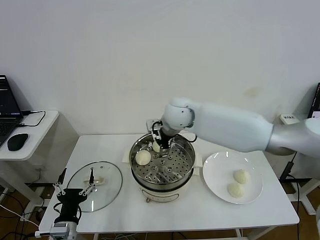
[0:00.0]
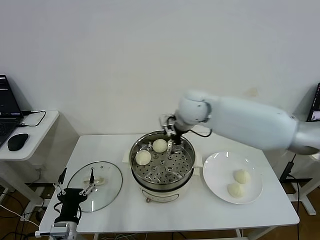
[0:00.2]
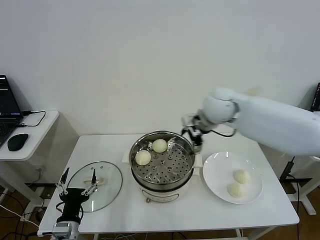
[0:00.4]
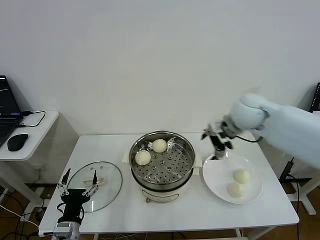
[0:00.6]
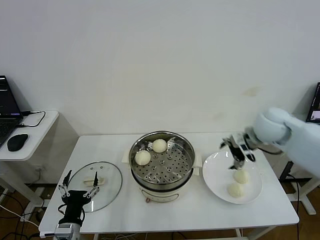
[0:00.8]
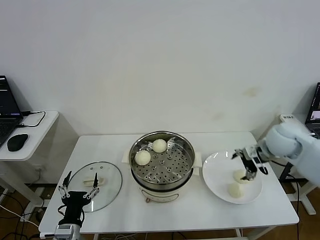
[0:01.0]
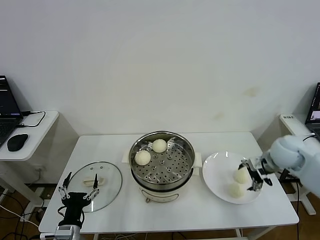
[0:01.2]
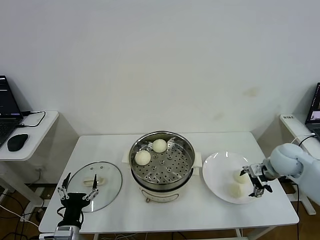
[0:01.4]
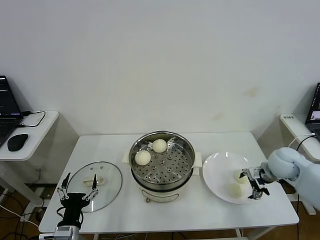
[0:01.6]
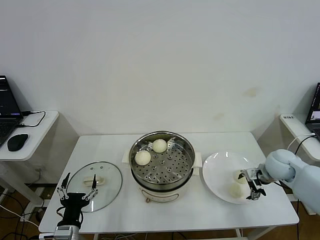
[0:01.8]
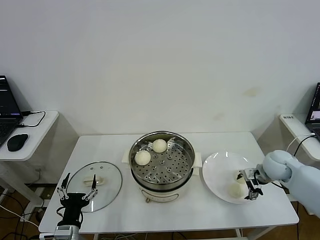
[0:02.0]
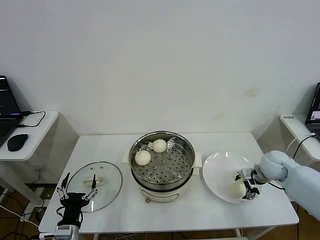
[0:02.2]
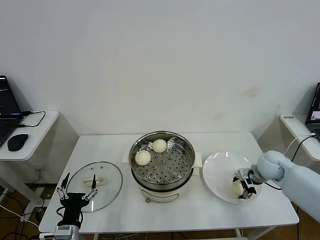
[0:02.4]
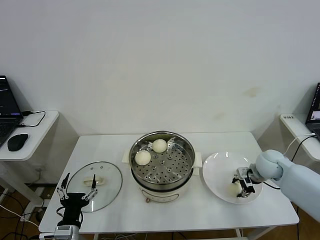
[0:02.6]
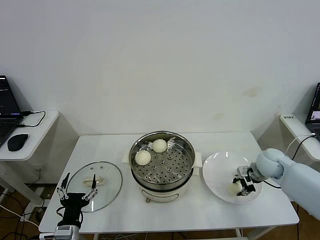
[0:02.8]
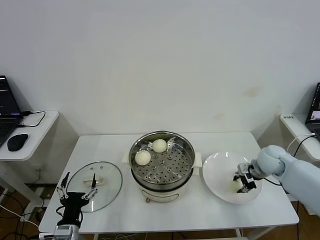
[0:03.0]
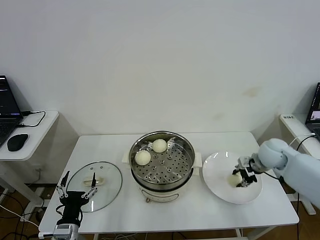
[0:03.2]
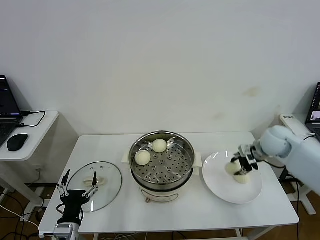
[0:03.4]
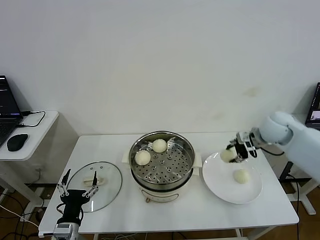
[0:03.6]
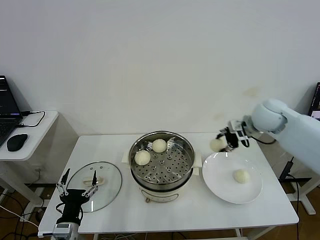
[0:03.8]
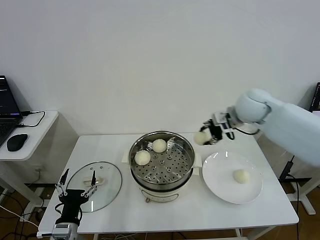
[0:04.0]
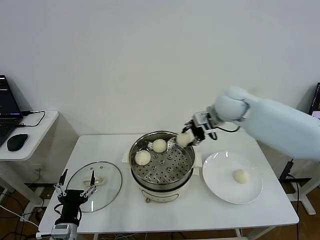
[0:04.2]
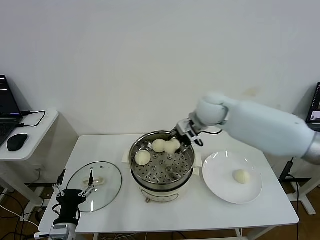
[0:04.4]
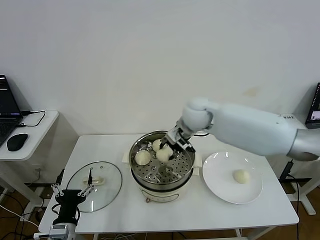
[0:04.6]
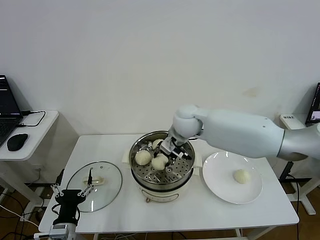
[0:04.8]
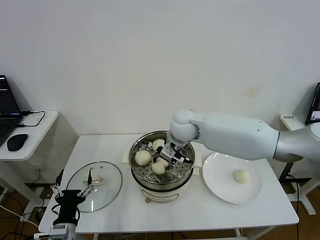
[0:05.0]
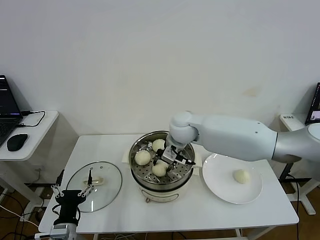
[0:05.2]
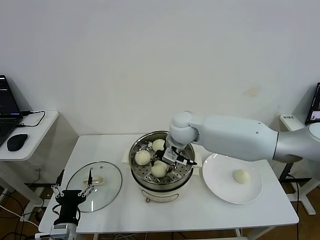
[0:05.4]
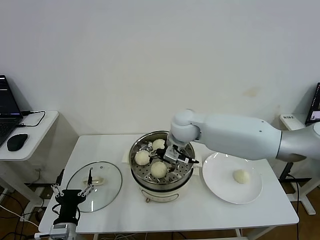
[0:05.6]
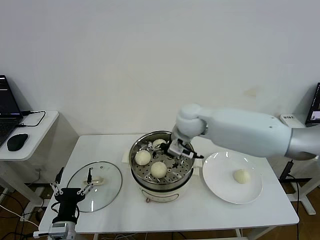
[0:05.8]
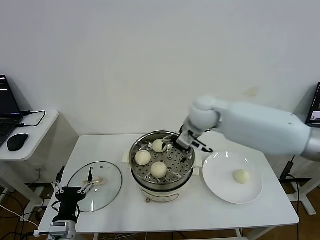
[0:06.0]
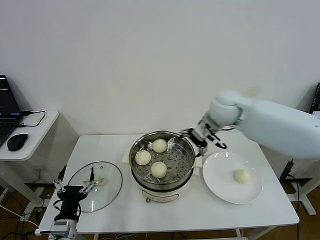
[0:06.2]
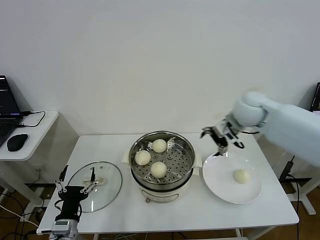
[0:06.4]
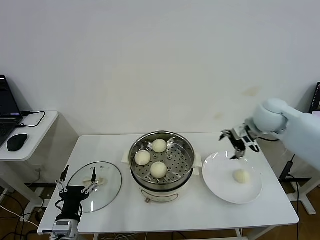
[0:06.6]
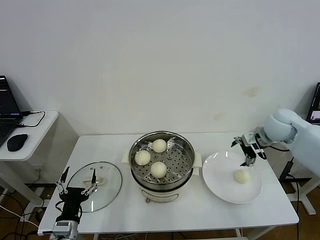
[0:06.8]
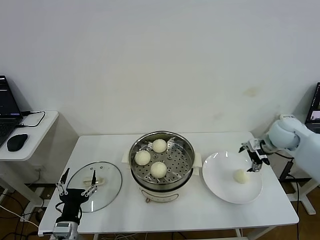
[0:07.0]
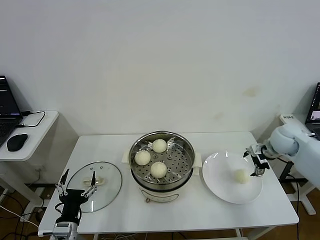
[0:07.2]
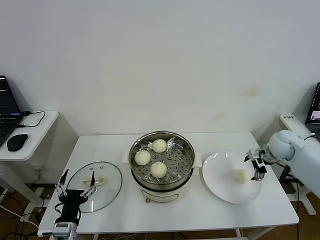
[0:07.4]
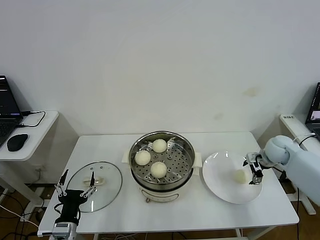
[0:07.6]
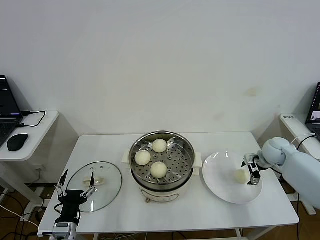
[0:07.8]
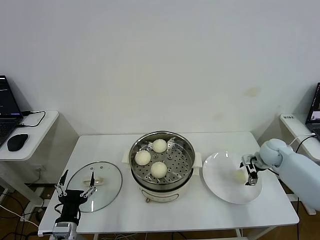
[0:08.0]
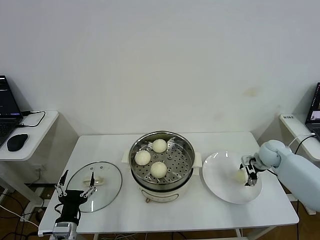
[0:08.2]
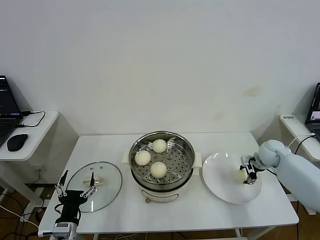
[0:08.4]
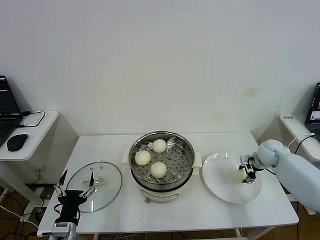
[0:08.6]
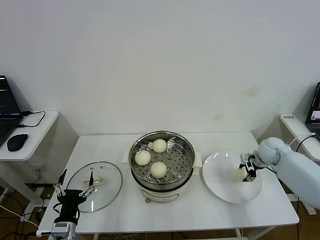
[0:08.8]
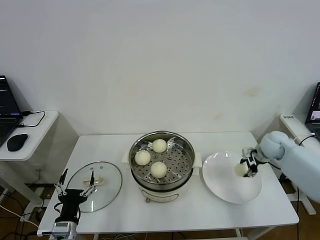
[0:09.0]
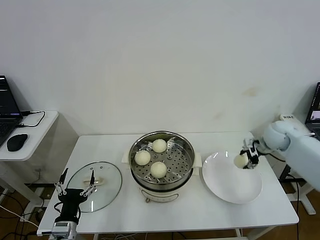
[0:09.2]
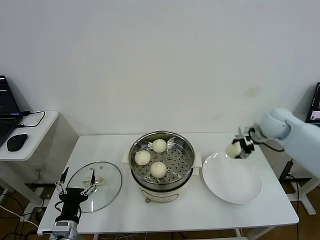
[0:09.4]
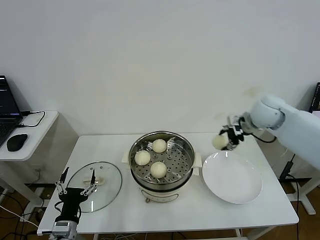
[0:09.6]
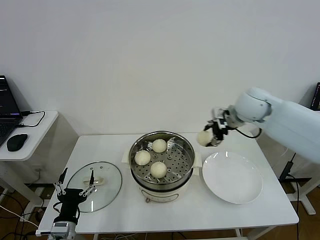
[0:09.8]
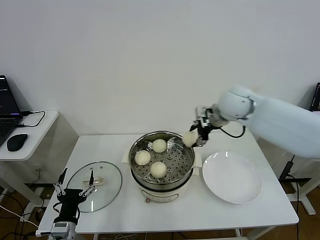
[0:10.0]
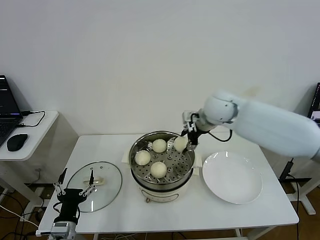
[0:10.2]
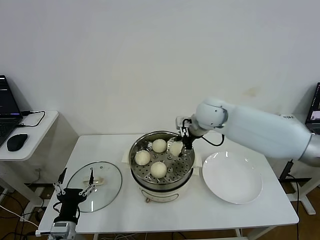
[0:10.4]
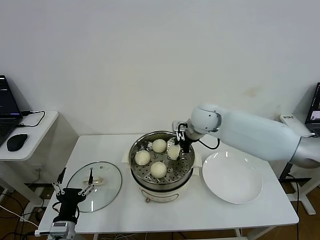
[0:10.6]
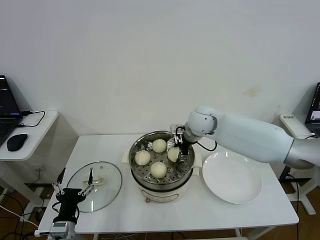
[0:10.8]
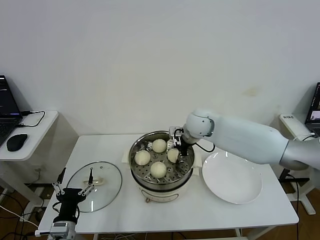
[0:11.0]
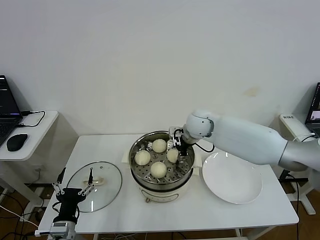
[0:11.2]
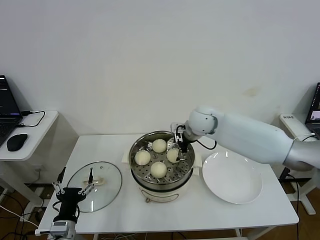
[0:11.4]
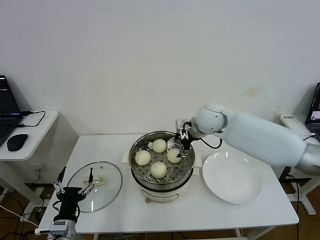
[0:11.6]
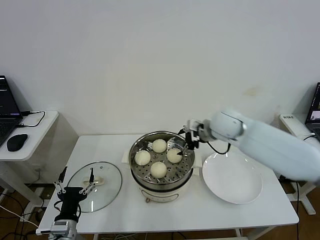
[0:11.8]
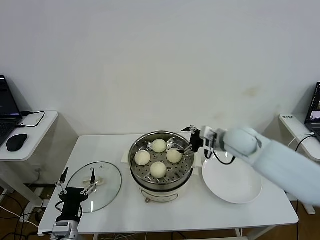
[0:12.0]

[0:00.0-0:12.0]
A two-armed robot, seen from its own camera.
Step, 0:00.0 to 0:02.8: Grasp the baozi in the plate with right gripper.
Step, 0:03.0 to 0:05.4: Place the baozi on the steamer with right gripper.
Step, 0:05.8 to 0:08.6: Grasp the baozi in the plate with right gripper.
Step, 0:08.8 to 0:11.2: Place the baozi on the steamer with right gripper.
0:00.0 to 0:01.6: The right gripper goes some 35 cm to the right and downward.
0:01.6 to 0:03.0: The right gripper closes its fingers.
0:03.0 to 0:04.4: The right gripper goes some 30 cm to the left and upward.
0:04.4 to 0:06.0: The right gripper reaches approximately 10 cm to the left, then returns, and opens its fingers.
0:06.0 to 0:07.6: The right gripper shifts approximately 35 cm to the right and downward.
0:07.6 to 0:09.0: The right gripper closes its fingers.
0:09.0 to 0:10.4: The right gripper shifts approximately 30 cm to the left and upward.
0:10.4 to 0:12.0: The right gripper goes about 10 cm to the right and backward, and opens.

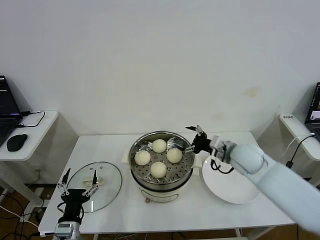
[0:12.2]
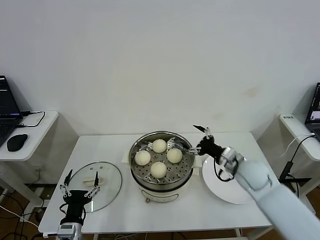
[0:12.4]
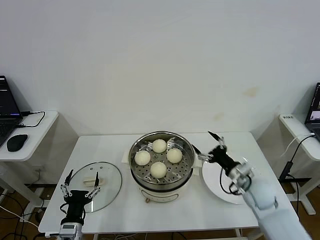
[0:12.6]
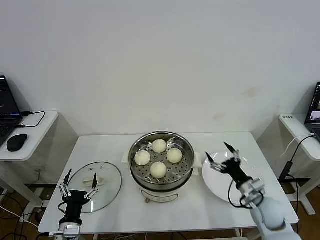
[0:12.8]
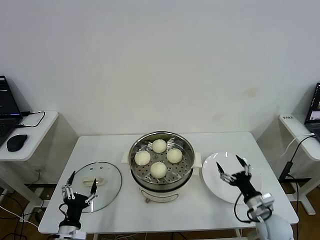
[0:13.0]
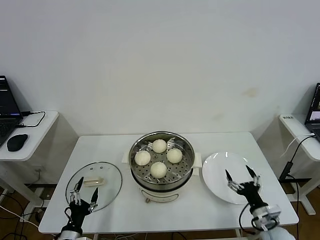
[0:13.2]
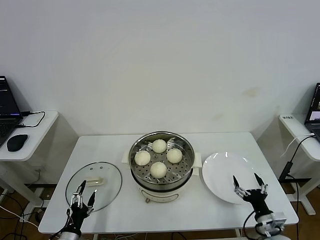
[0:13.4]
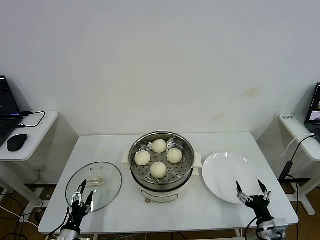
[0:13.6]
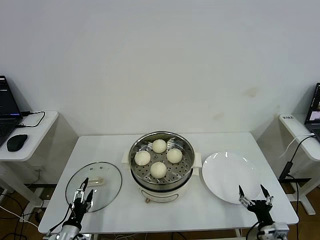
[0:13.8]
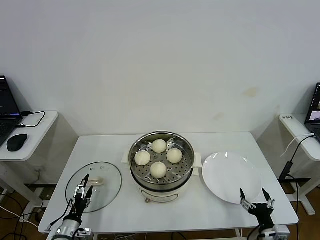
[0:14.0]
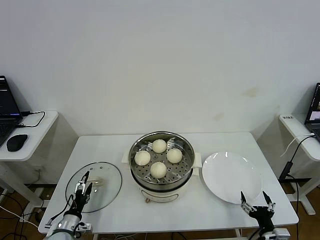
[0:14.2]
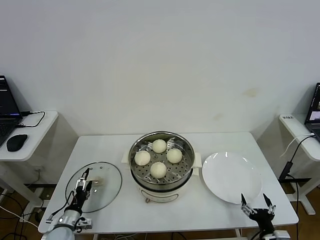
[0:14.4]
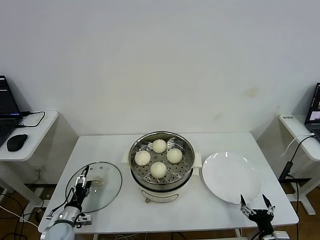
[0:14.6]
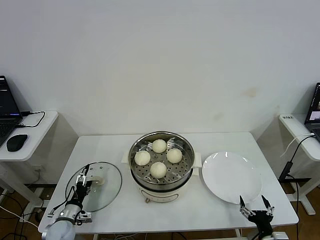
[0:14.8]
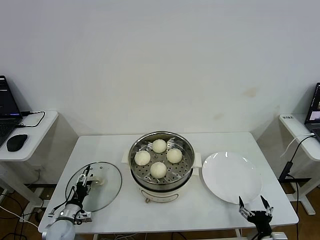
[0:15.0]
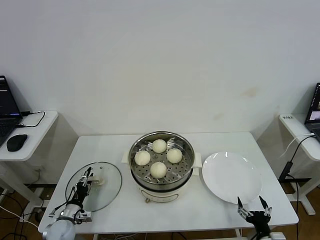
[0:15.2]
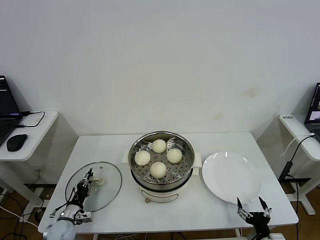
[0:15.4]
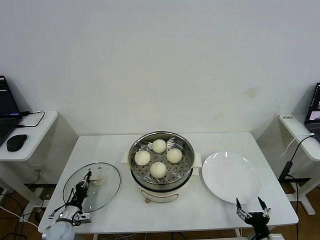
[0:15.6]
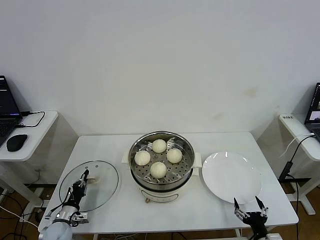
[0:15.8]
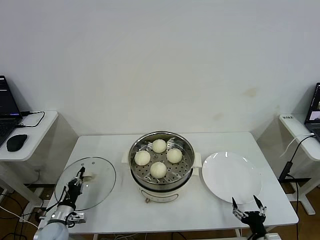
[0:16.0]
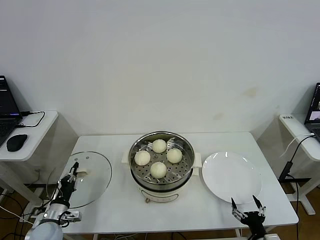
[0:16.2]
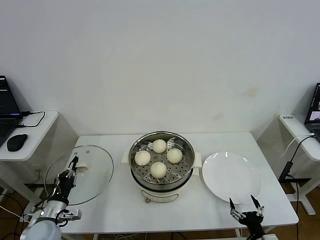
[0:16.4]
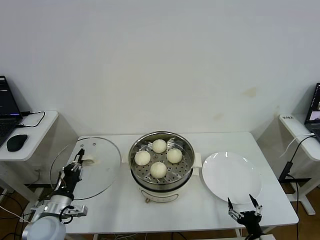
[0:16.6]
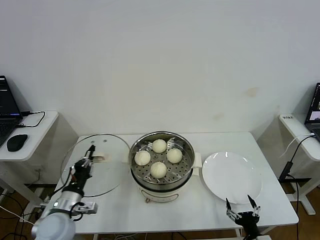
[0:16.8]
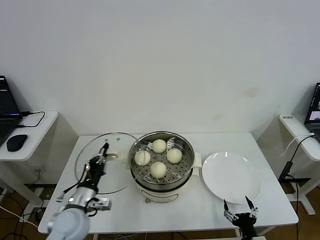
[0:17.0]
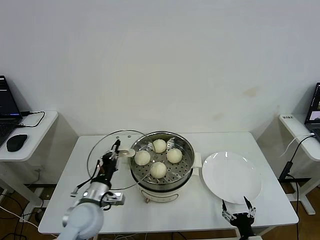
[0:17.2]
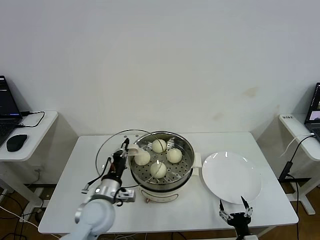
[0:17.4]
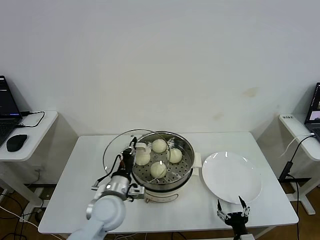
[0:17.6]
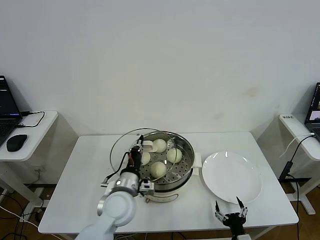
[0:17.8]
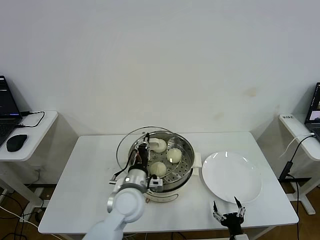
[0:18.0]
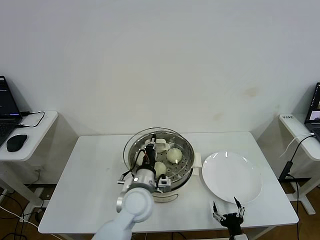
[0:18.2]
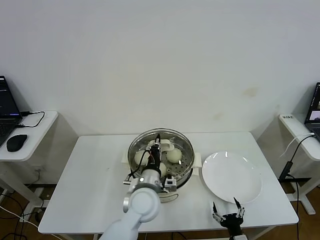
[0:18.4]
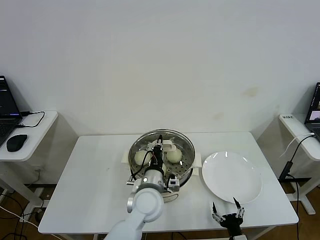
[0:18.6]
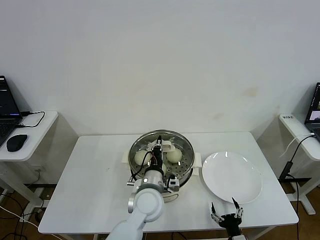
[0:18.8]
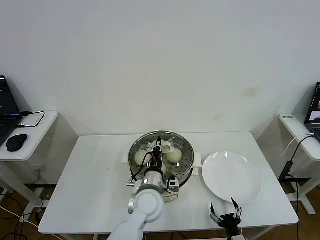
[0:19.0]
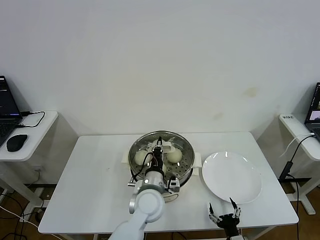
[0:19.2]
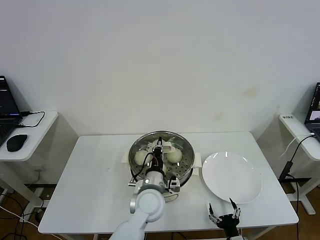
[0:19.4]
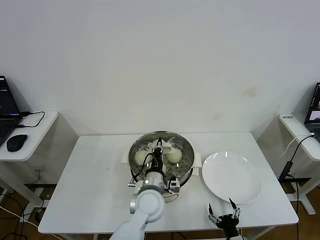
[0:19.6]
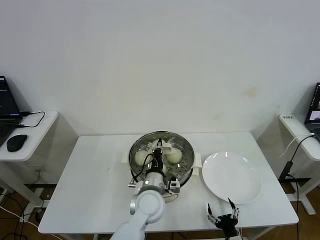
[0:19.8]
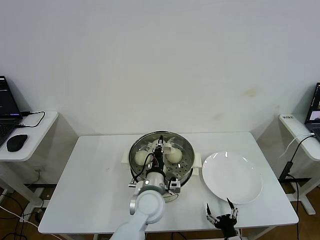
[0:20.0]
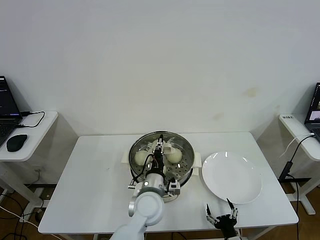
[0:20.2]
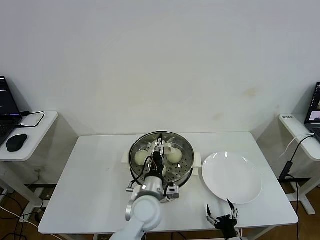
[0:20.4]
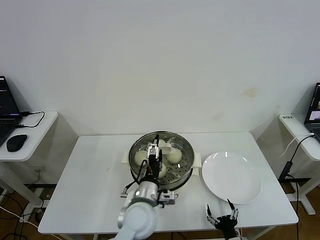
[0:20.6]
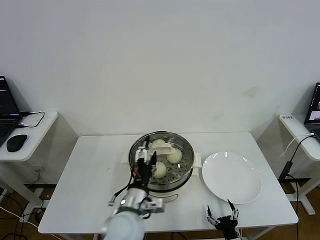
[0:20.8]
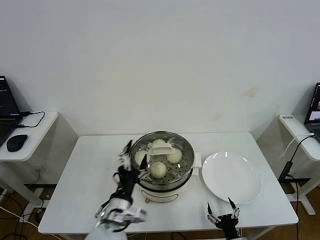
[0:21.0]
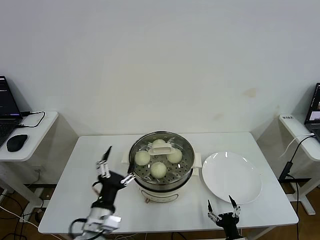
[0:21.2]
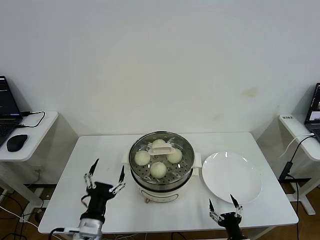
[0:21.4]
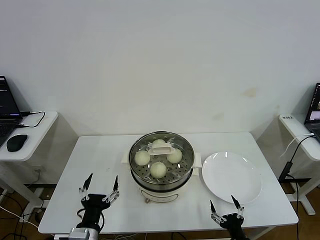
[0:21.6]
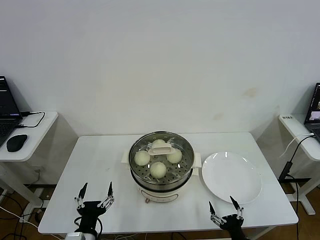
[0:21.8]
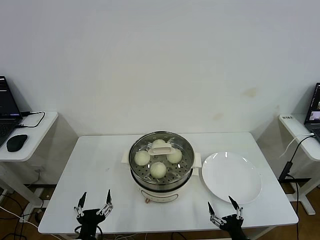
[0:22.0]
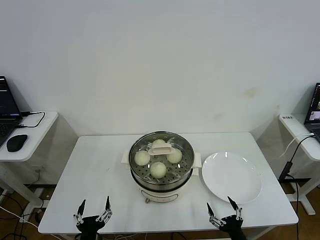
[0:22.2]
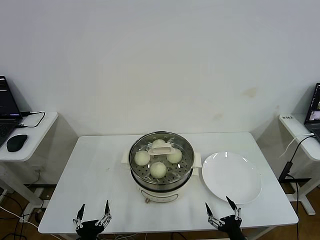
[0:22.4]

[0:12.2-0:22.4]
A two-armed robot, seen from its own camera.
Step, 0:12.2 to 0:15.6: Grasp the pot lid with left gripper.
Step, 0:15.8 to 0:20.0: Place the pot lid on the steamer with left gripper.
0:12.2 to 0:13.6: The right gripper heads backward, downward and to the right, covering roughly 35 cm. Meanwhile the left gripper heads downward and to the left, covering some 10 cm.
0:13.6 to 0:15.2: The left gripper shifts about 10 cm forward, and closes.
0:15.2 to 0:16.6: The left gripper is displaced upward by about 15 cm, and closes its fingers.
0:16.6 to 0:18.0: The left gripper shifts roughly 25 cm to the right; the right gripper is displaced to the left by roughly 5 cm.
0:18.0 to 0:19.4: The left gripper heads to the right, covering roughly 5 cm.
0:19.4 to 0:21.0: The left gripper shifts approximately 15 cm backward and to the left, and opens.
0:21.0 to 0:22.4: The left gripper heads backward, downward and to the left, covering about 20 cm. Meanwhile the right gripper moves about 5 cm.
